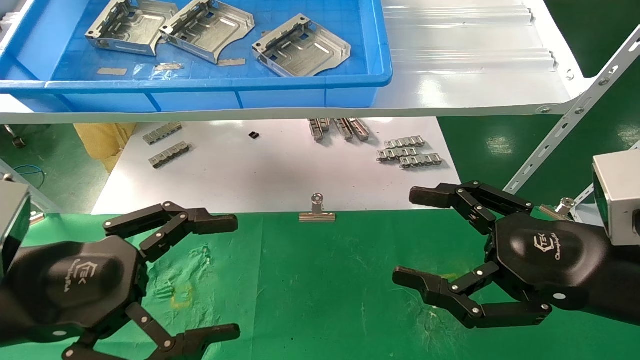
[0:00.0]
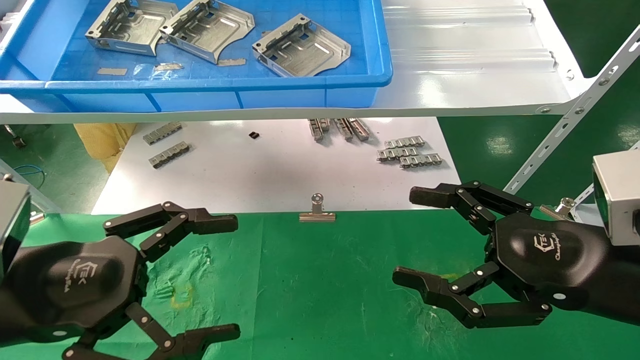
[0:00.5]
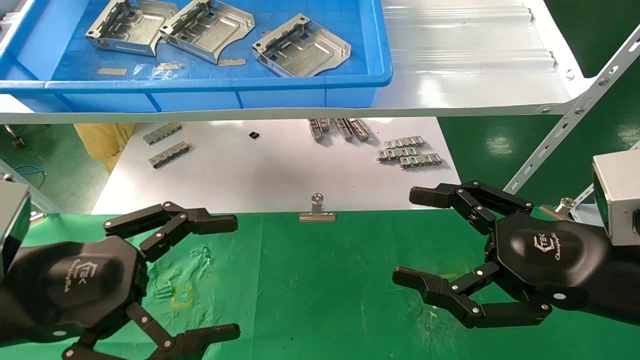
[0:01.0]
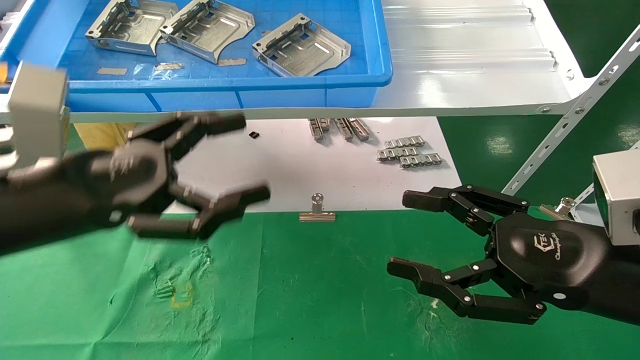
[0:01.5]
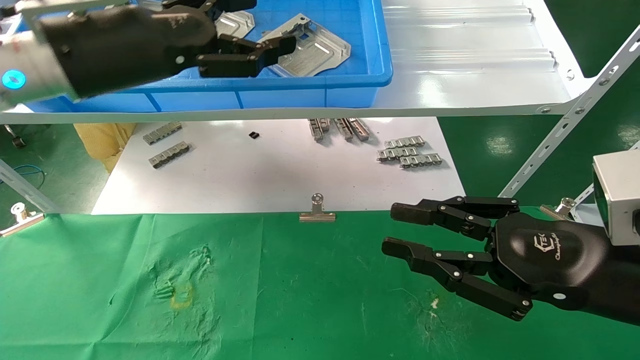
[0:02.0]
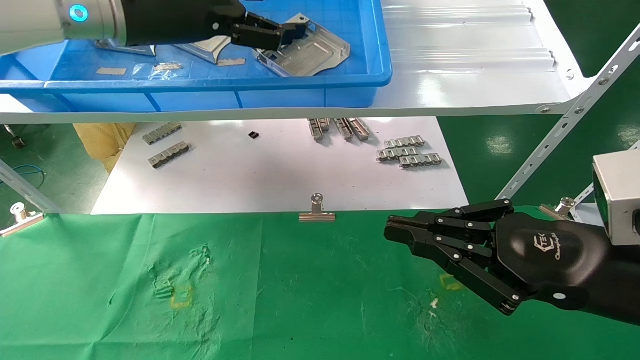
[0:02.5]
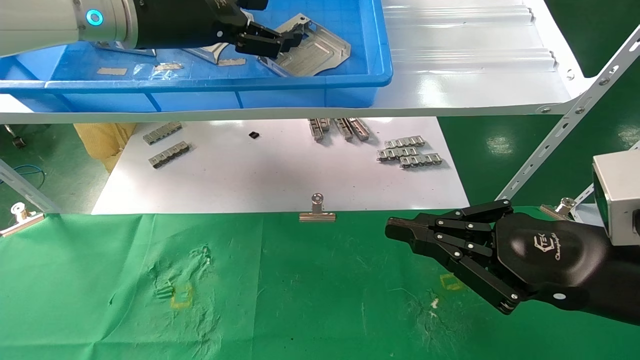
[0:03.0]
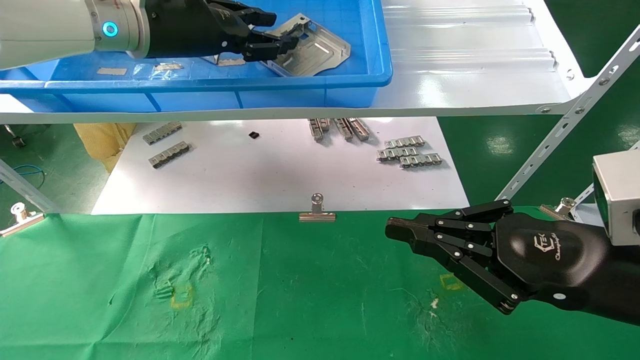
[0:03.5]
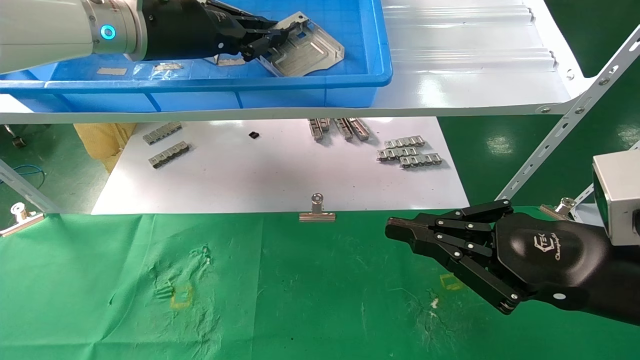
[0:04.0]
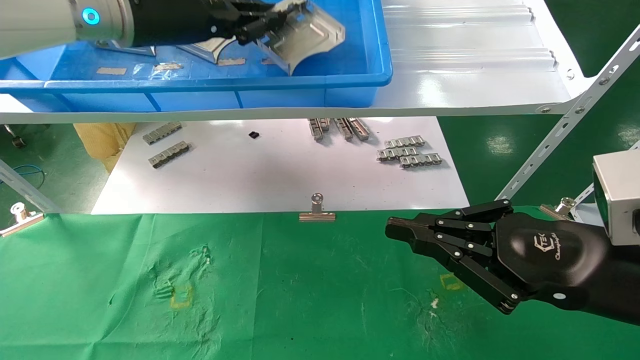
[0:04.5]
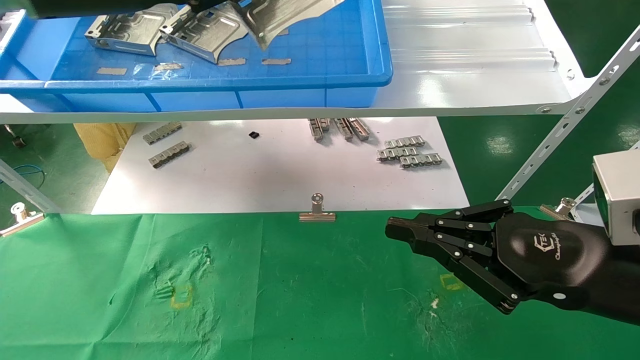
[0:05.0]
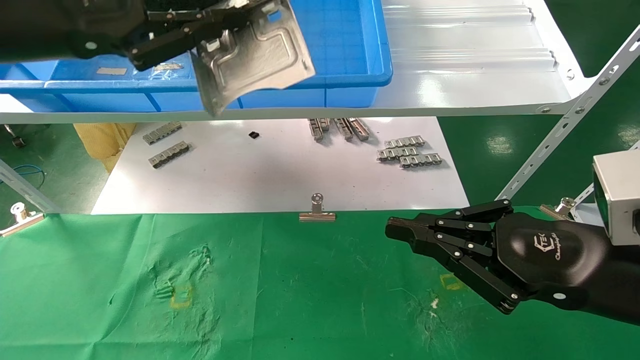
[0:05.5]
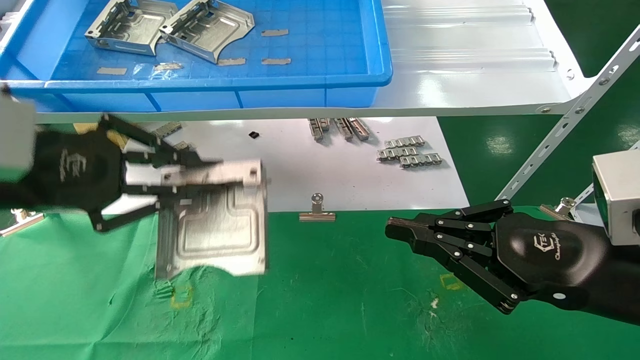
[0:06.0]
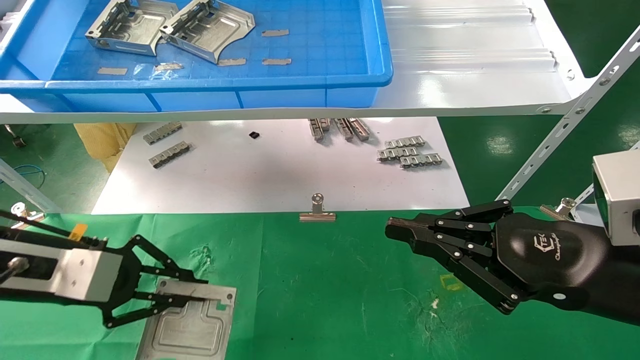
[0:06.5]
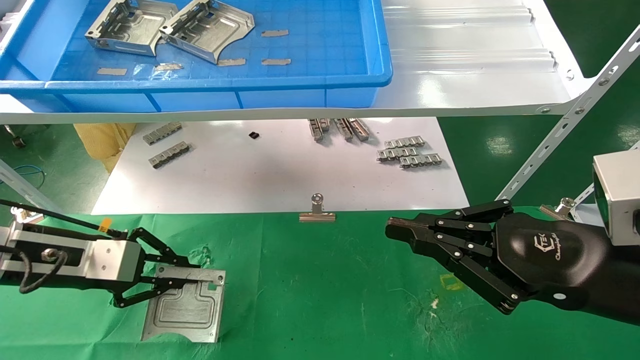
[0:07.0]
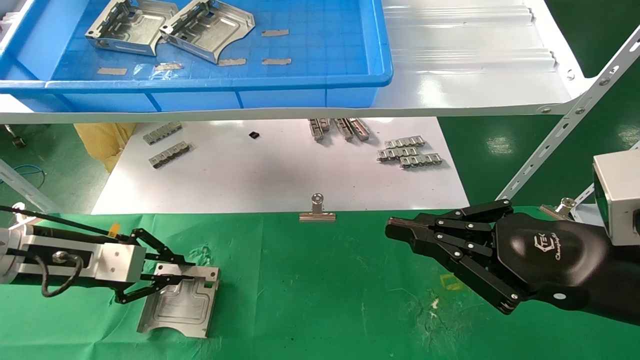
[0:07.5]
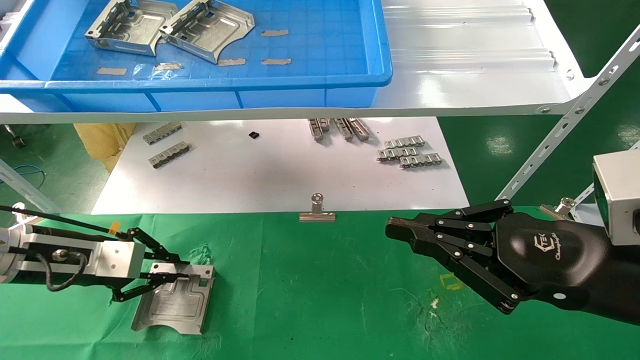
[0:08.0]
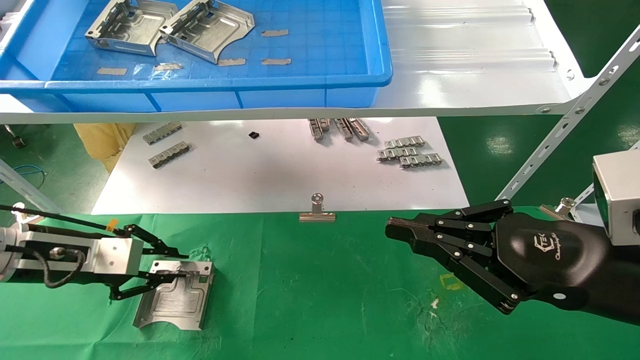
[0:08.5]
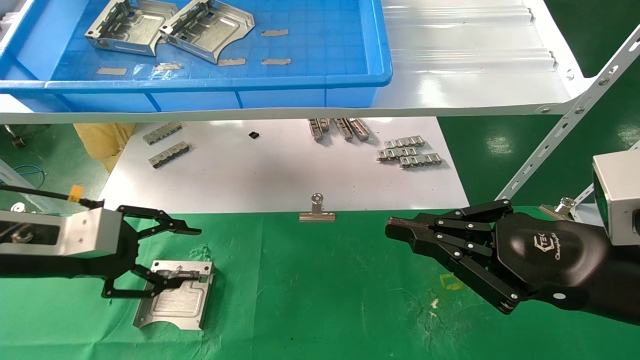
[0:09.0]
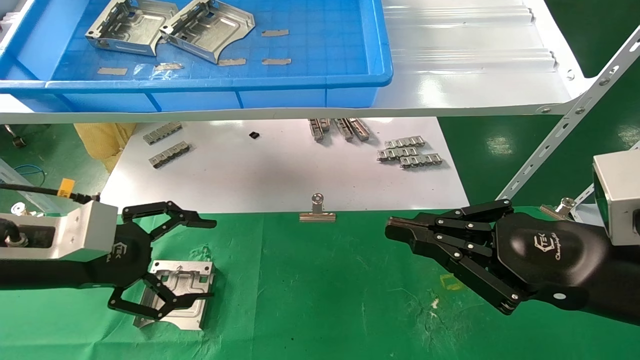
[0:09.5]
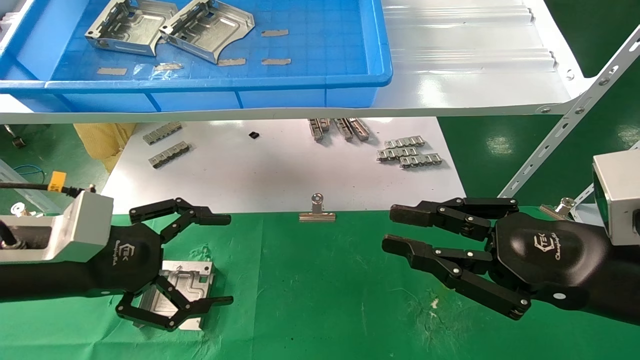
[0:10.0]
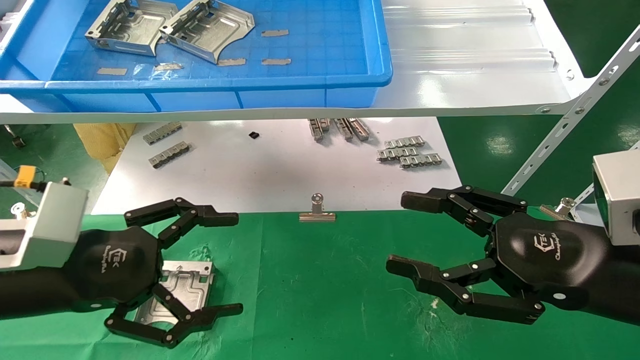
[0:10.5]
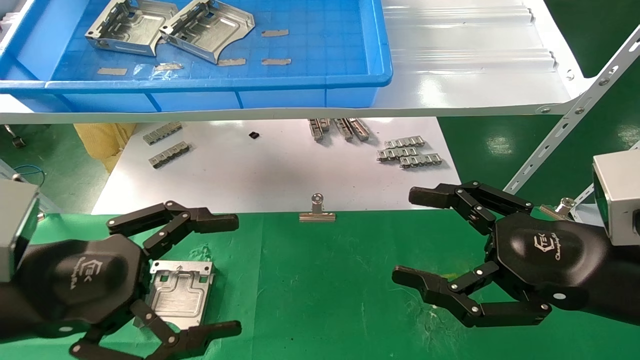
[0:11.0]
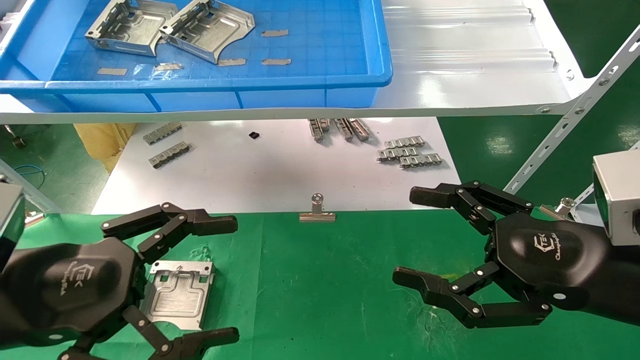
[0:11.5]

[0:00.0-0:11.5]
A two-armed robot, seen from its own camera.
Task of the whole recording: use the mechanical arm to pick up the parts and place them on the table.
Step, 0:01.5 to 0:04.0: Pick up the hard drive bracket from the feeding area.
Step, 0:04.5 to 0:08.5: Place the hard drive bracket into the box.
0:00.0 to 0:02.0: The left gripper travels upward and forward by approximately 20 cm. Meanwhile the right gripper closes up.
0:02.0 to 0:04.0: The left gripper moves forward, about 10 cm, and closes up, while the right gripper closes.
0:04.0 to 0:06.0: The left gripper is displaced backward, downward and to the left by some 25 cm.
0:06.0 to 0:07.5: The left gripper travels downward and forward by about 15 cm.
0:07.5 to 0:09.5: The left gripper shifts some 5 cm backward, and opens.
0:09.5 to 0:11.5: The left gripper heads backward, covering about 10 cm, while the right gripper opens.

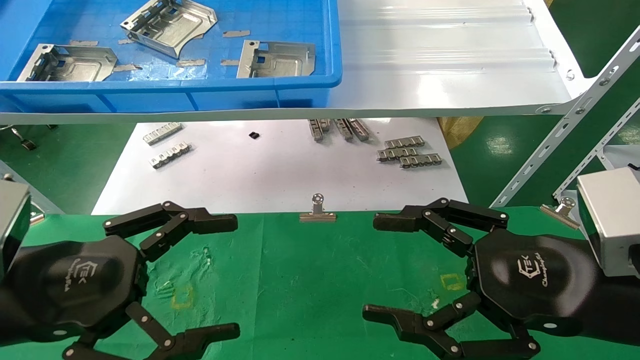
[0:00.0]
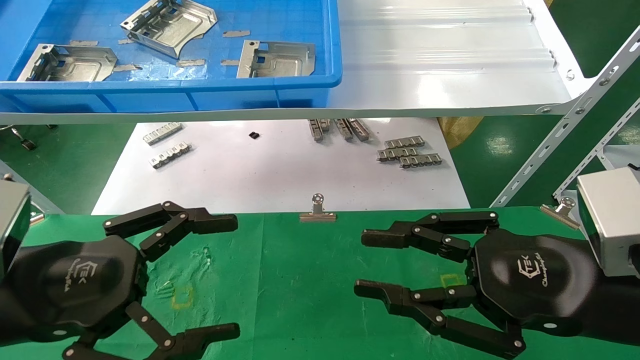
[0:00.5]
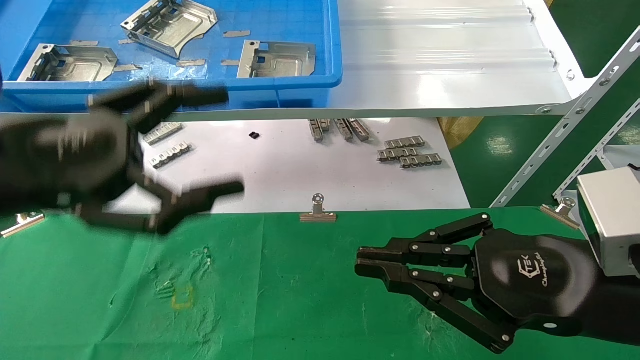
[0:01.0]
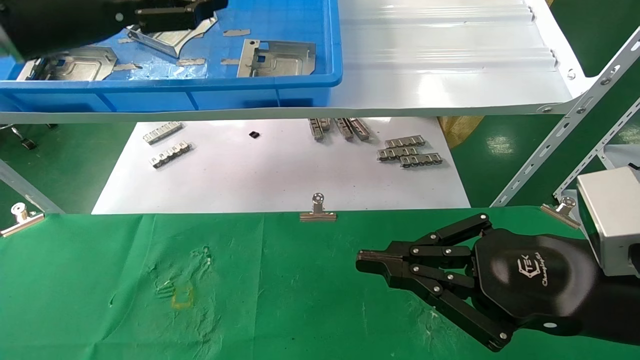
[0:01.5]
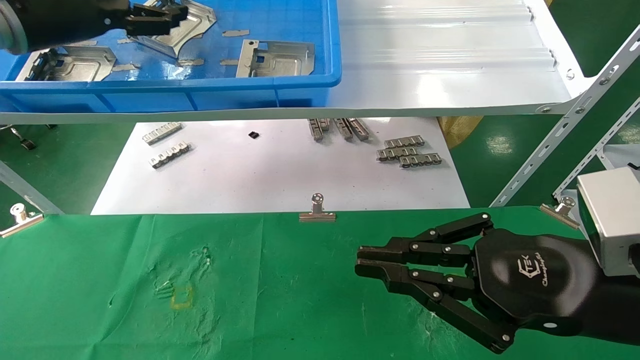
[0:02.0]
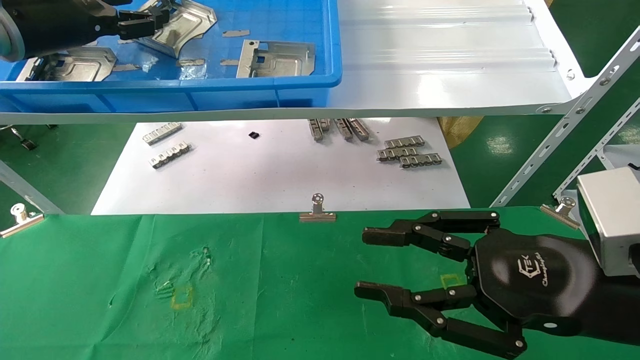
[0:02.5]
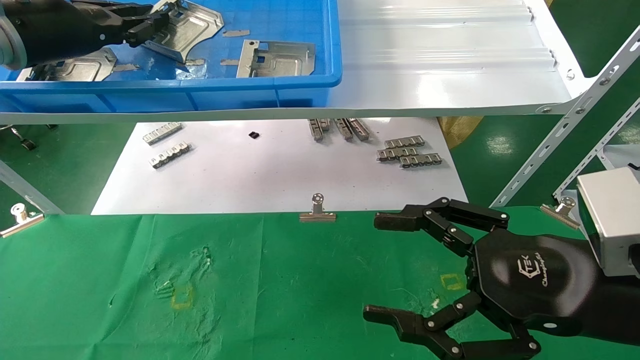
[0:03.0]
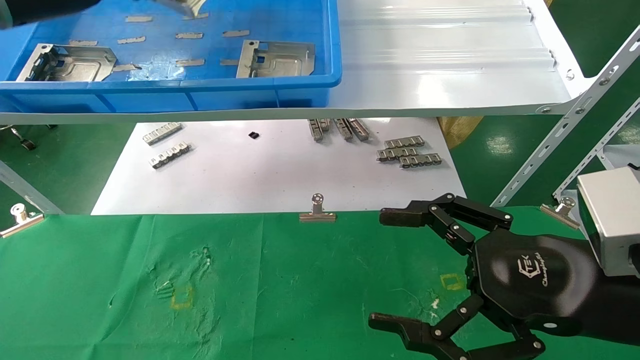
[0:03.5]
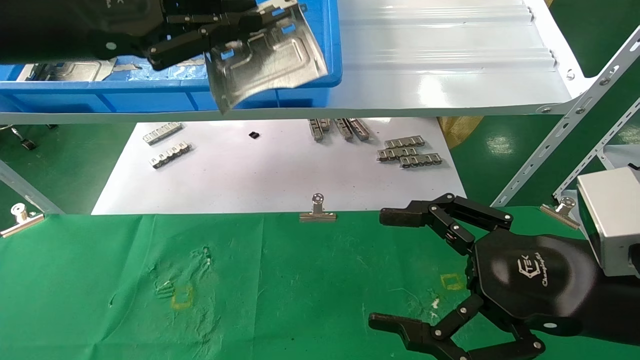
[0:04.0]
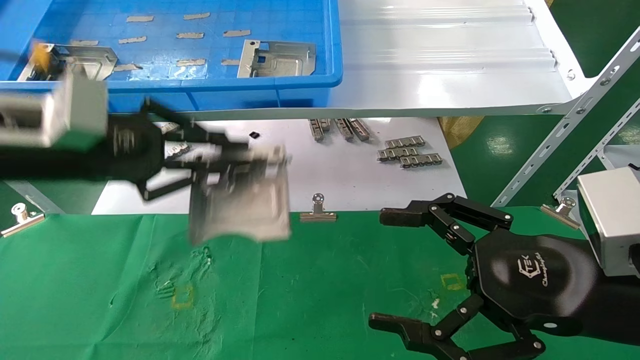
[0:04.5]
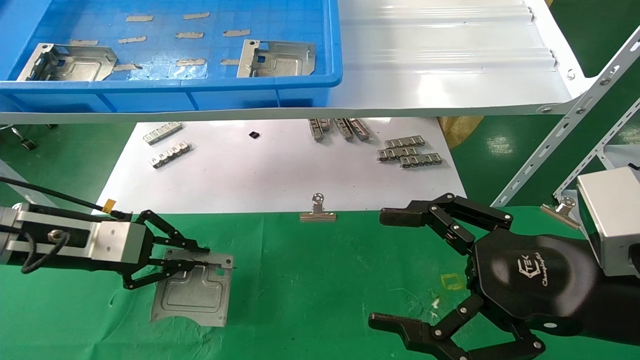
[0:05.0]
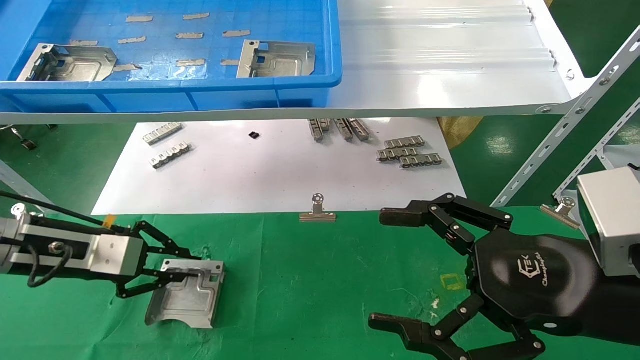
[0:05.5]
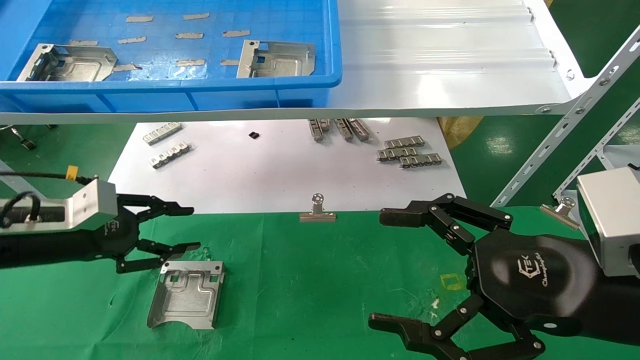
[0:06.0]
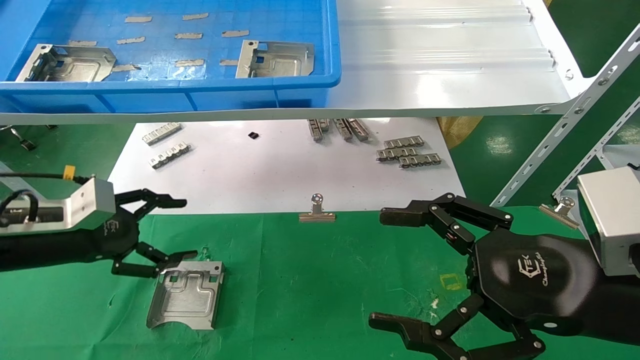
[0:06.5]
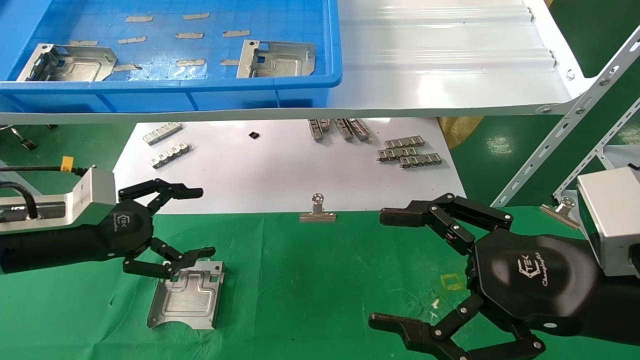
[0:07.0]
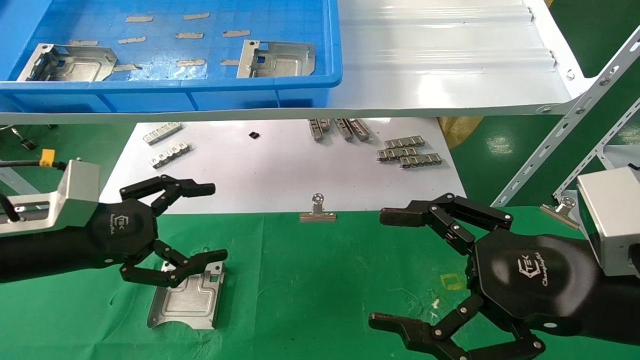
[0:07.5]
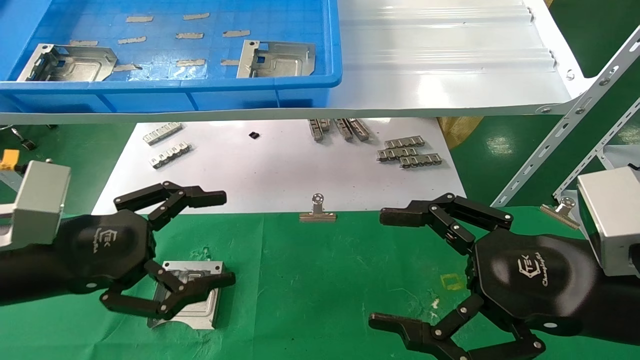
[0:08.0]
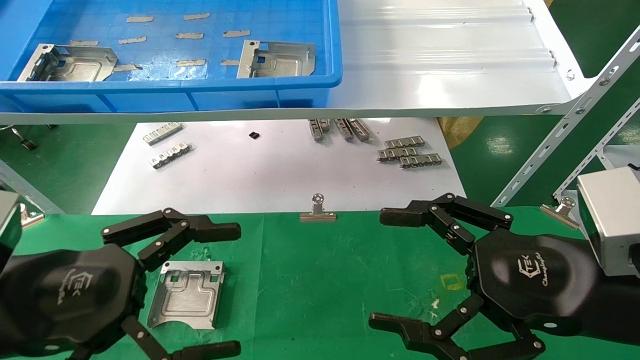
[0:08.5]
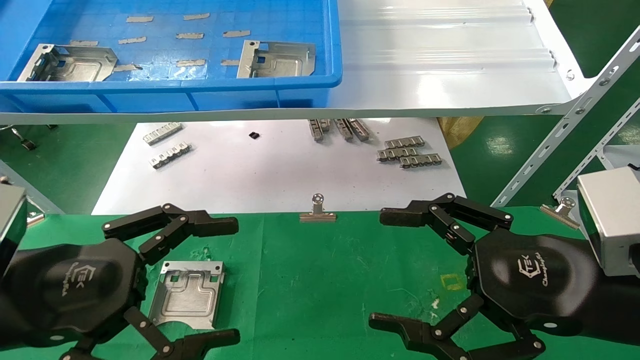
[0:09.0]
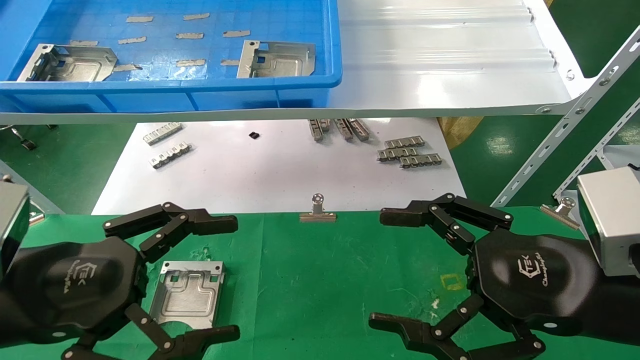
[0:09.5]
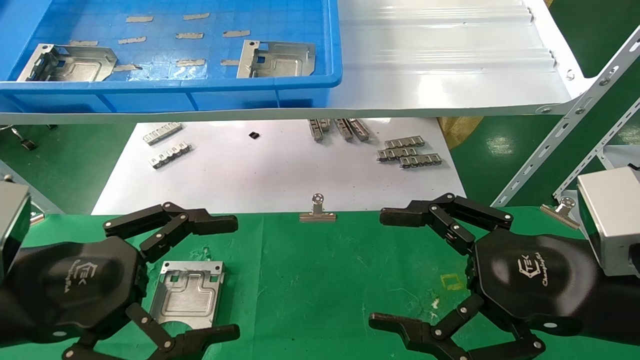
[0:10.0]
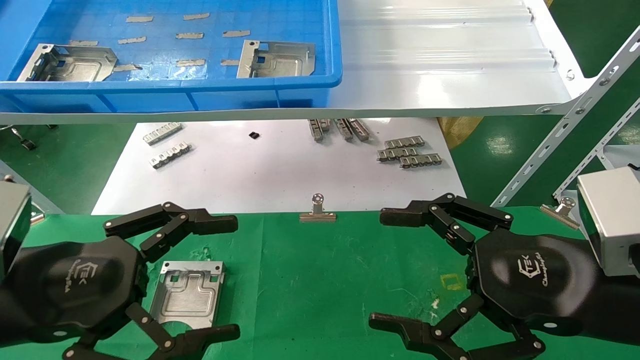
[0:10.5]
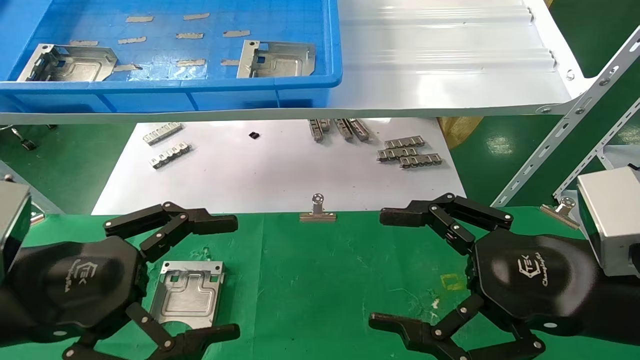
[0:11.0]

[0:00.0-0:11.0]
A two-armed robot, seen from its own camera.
Task of the whole recording: use the mechanical arm to pick up the parts and place them on the table.
Step, 0:01.0 to 0:03.0: Pick up the hard drive bracket from the feeding area.
Step, 0:03.5 to 0:05.5: Place the hard drive bracket into the box.
0:00.0 to 0:02.0: The right gripper closes up. The left gripper is displaced upward and forward by roughly 30 cm.
0:02.0 to 0:03.5: The right gripper opens its fingers. Meanwhile the left gripper closes up.
0:03.5 to 0:05.5: The left gripper heads downward, covering about 25 cm.
0:05.5 to 0:07.5: The left gripper goes approximately 5 cm backward, and opens up.
0:07.5 to 0:09.0: The left gripper goes roughly 10 cm backward.
0:09.0 to 0:11.0: Neither gripper changes place.
